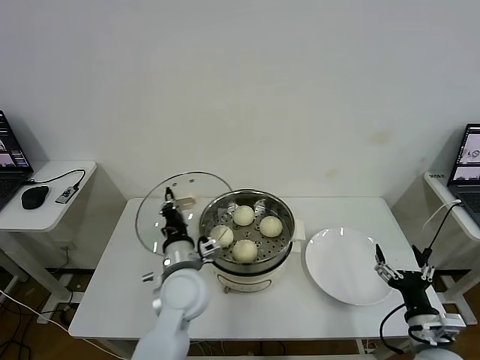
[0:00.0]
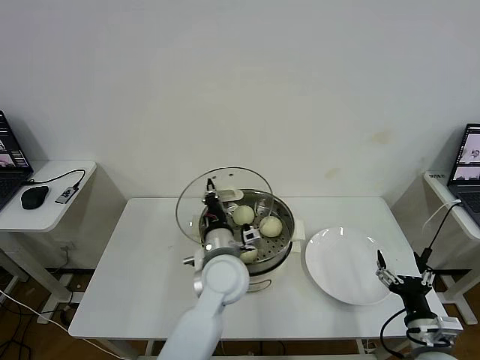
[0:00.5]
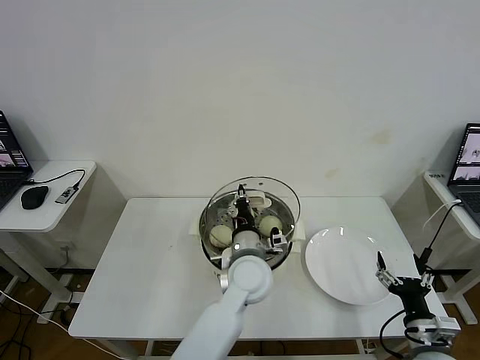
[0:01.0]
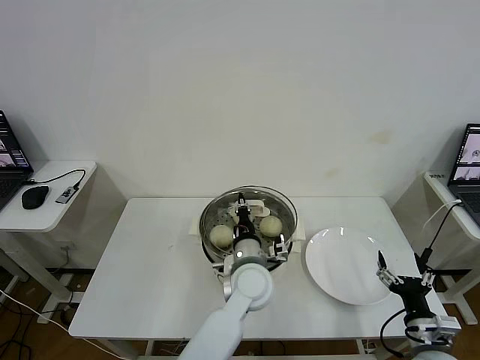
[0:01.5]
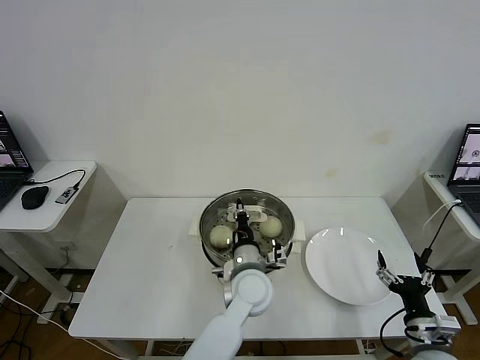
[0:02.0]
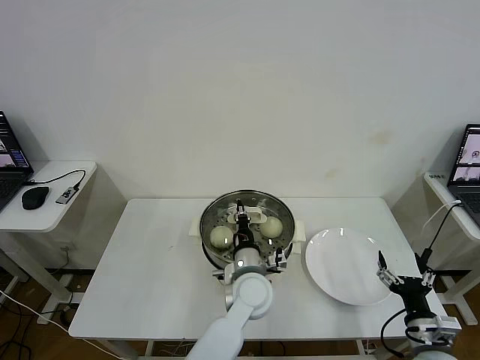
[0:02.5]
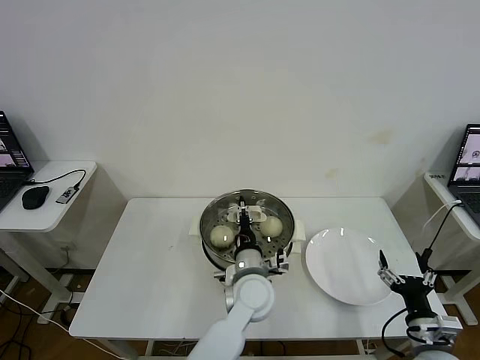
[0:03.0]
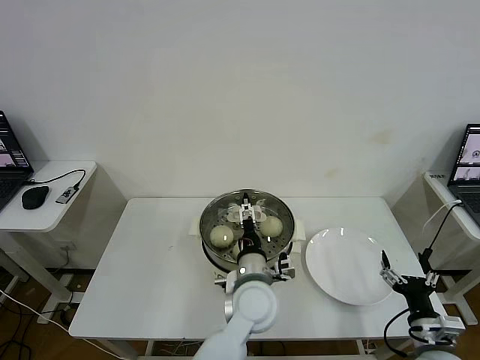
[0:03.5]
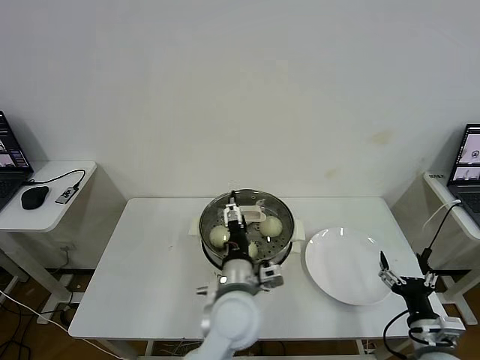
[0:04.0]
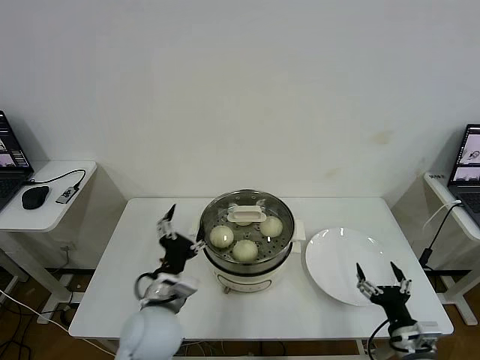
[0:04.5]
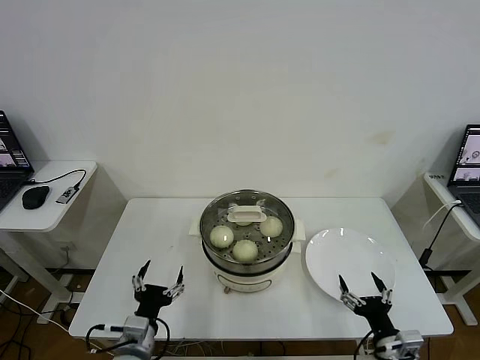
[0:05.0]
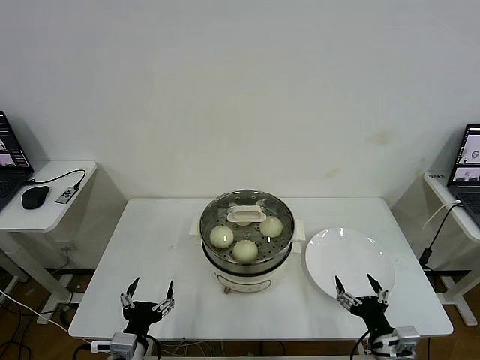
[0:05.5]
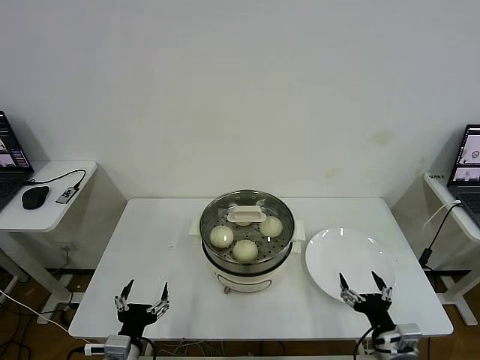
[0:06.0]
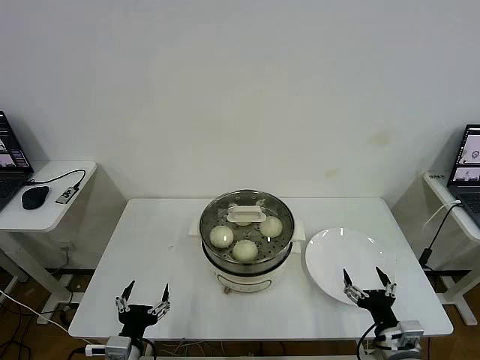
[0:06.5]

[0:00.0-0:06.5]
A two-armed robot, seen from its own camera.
Task of the whole recording: take steamed baozi put them in steamer then cover it.
Step, 0:00.0 to 0:03.5: Place the pot lid on the steamer with left gripper.
0:00.0 to 0:02.0: The left gripper goes some 15 cm to the right.
0:02.0 to 0:04.5: The left gripper heads to the left and backward, covering some 20 cm, and opens.
0:04.5 to 0:06.5: The left gripper moves backward, to the left and downward, roughly 20 cm.
